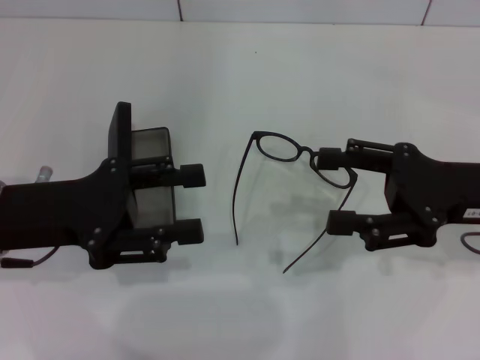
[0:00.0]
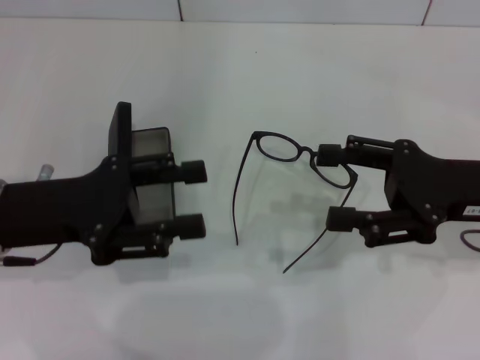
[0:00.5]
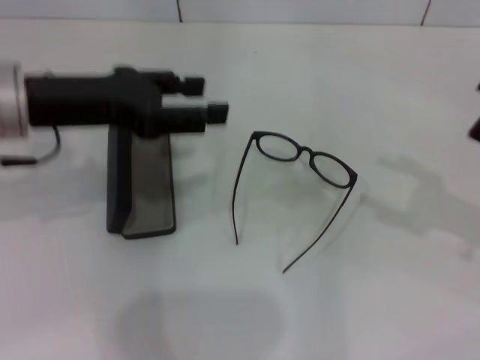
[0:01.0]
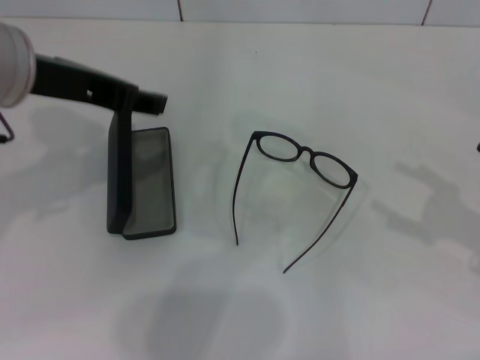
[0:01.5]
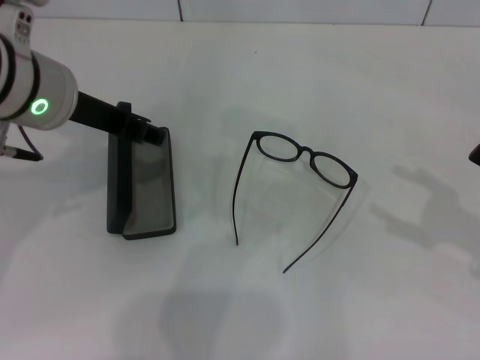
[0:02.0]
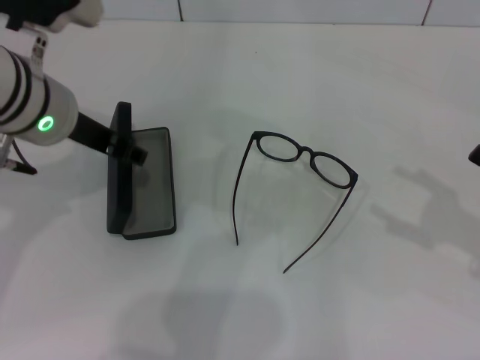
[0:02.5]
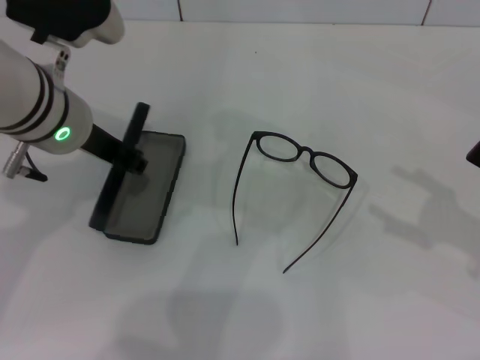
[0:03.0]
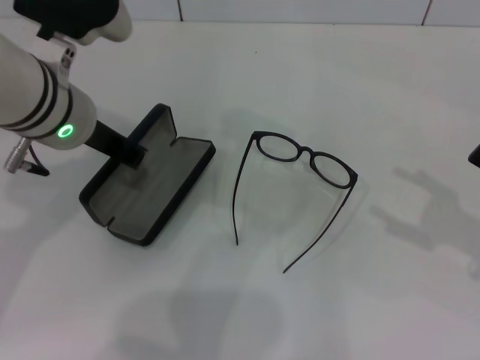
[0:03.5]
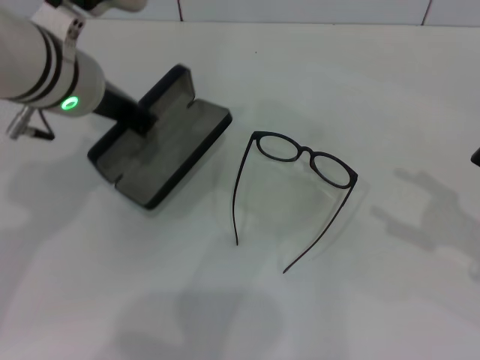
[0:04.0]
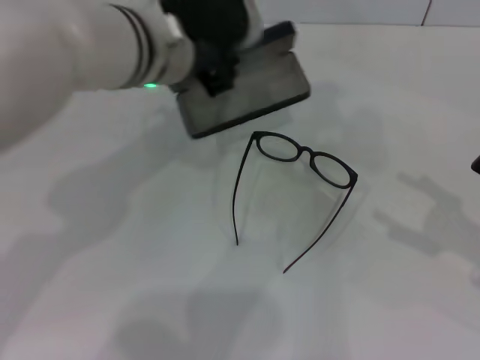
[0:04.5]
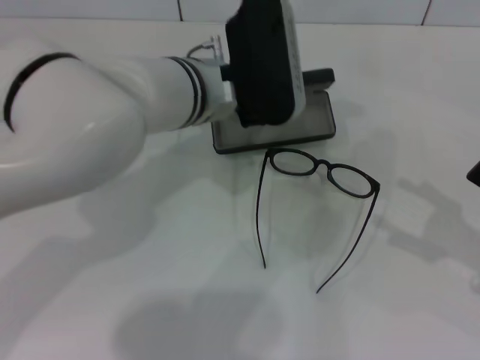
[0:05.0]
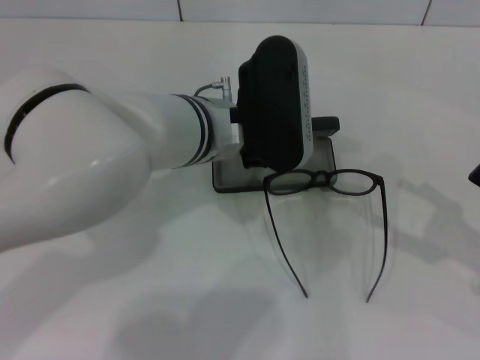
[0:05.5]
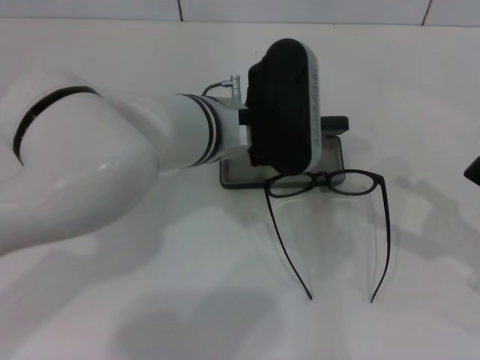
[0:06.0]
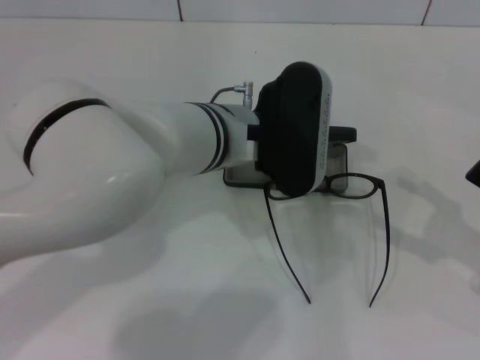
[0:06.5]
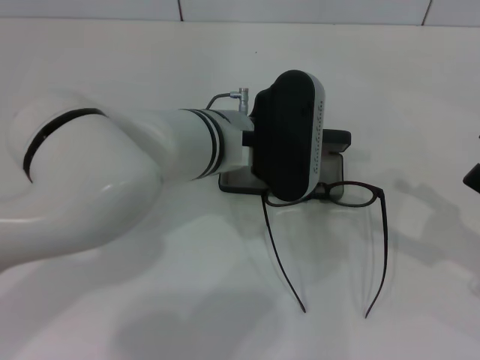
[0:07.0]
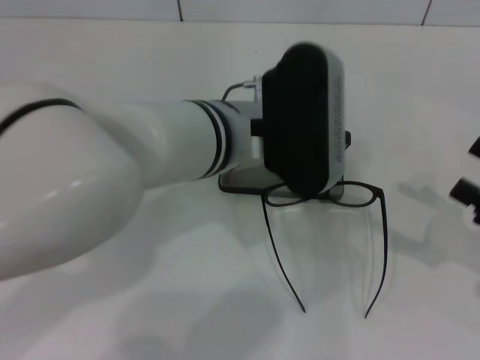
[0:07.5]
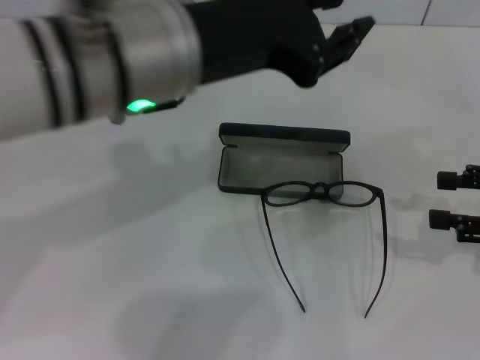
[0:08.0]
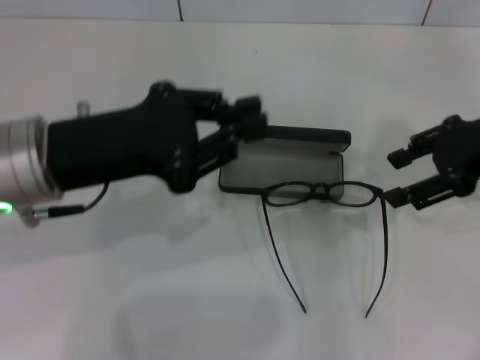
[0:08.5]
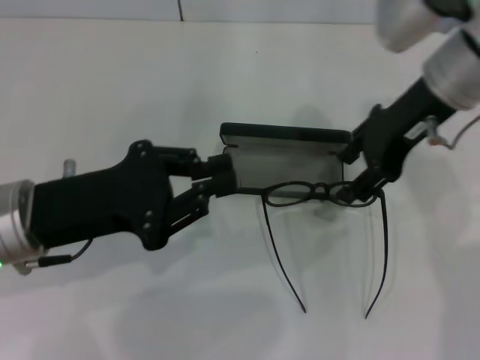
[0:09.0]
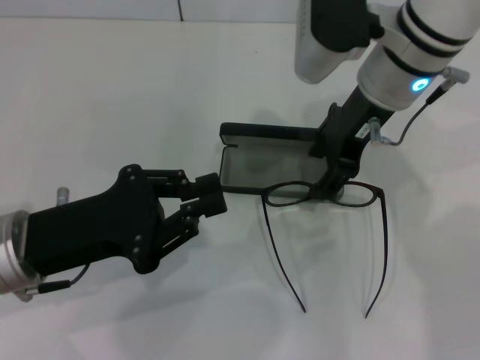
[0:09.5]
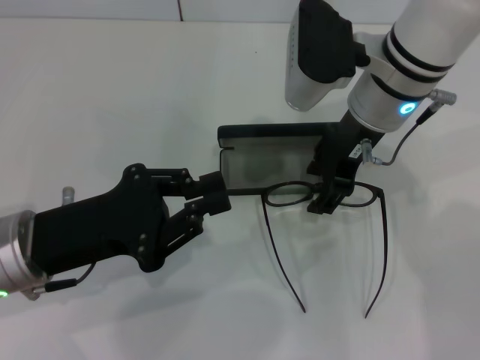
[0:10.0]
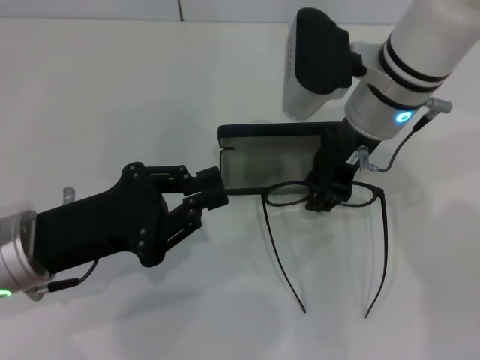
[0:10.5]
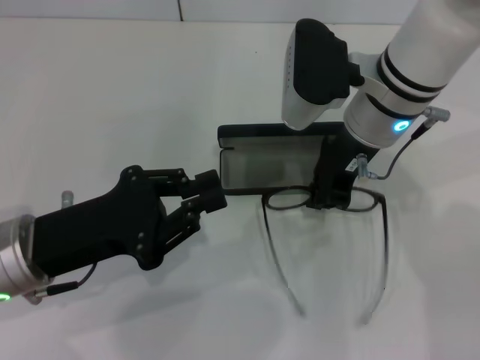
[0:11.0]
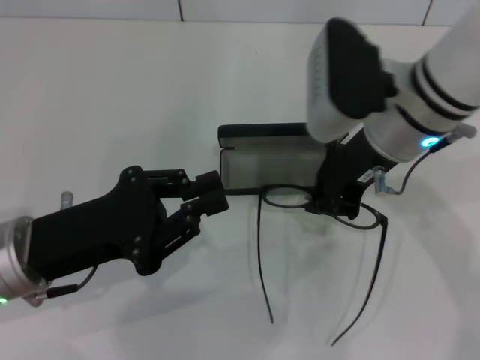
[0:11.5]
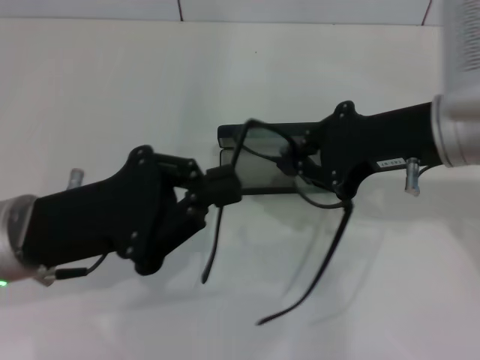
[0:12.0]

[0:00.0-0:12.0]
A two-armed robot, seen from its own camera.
Step, 0:00.0 to 0:03.0: Grab the glasses case with your left hand.
Step, 0:03.5 to 0:07.0: Place the glasses case in the center of the table with your left hand.
Step, 0:07.5 to 0:10.5: Grab the eyeglass frame with your right hand.
0:00.0 to 0:02.0: The right gripper shifts about 10 cm to the right and backward. Meanwhile the left gripper goes approximately 15 cm upward, to the right and forward.
0:02.0 to 0:04.0: The left gripper closes its fingers.
0:04.0 to 0:06.0: The left gripper moves to the right and downward, some 10 cm.
0:06.0 to 0:08.0: The right gripper shifts by approximately 5 cm. The left gripper is displaced upward, backward and to the left by approximately 15 cm.
0:08.0 to 0:10.0: The right gripper shifts some 25 cm to the left and forward; the left gripper travels downward and to the left by roughly 20 cm, and closes.
0:10.0 to 0:12.0: The right gripper moves backward and to the right, about 10 cm, and closes its fingers.

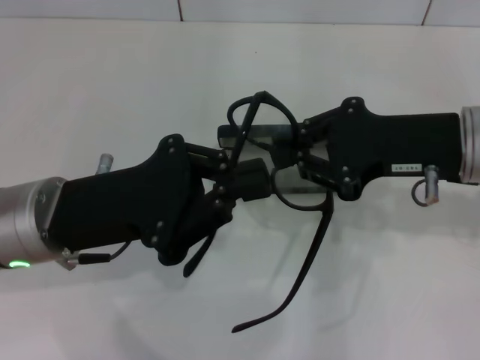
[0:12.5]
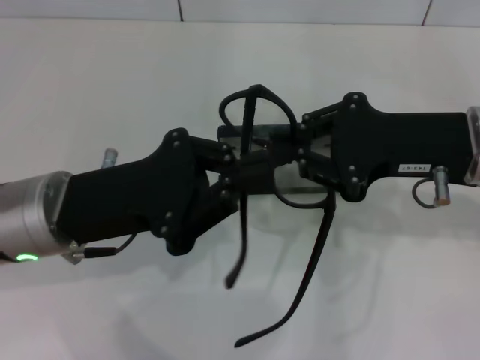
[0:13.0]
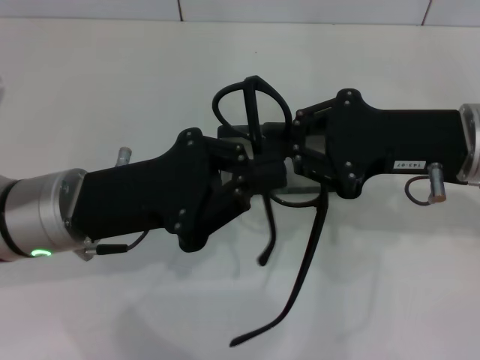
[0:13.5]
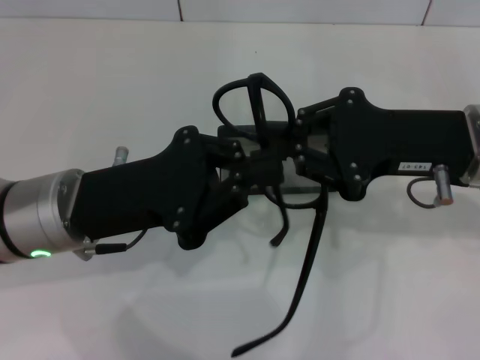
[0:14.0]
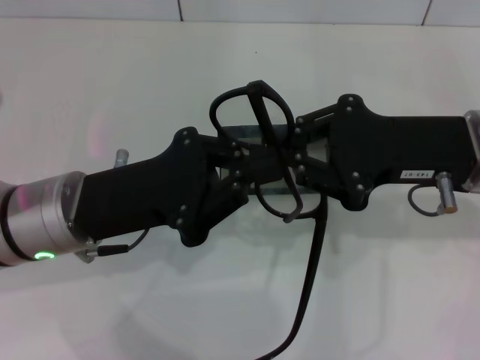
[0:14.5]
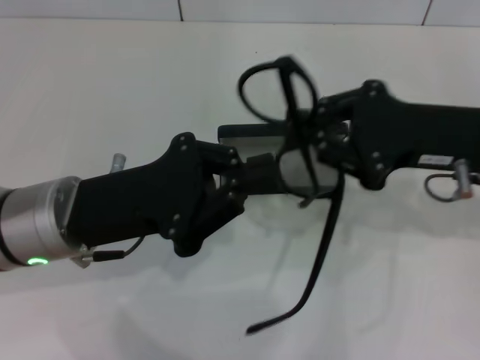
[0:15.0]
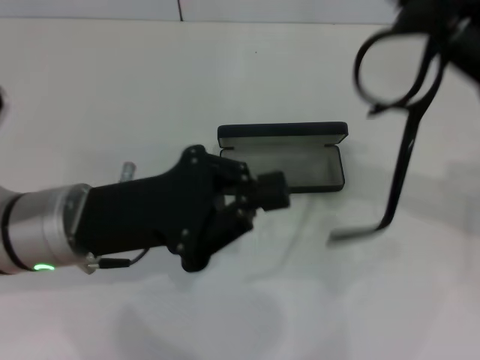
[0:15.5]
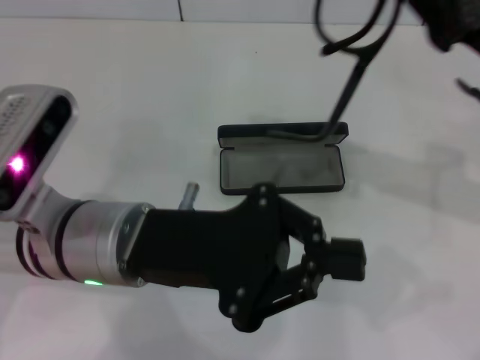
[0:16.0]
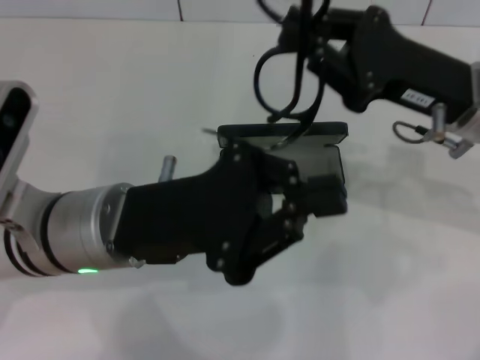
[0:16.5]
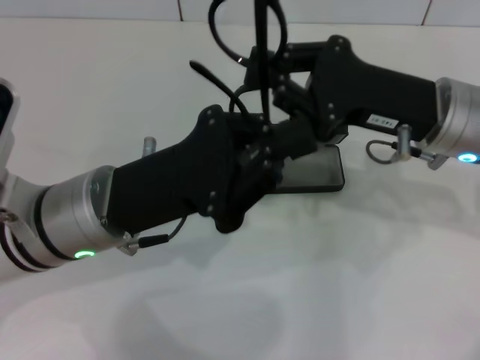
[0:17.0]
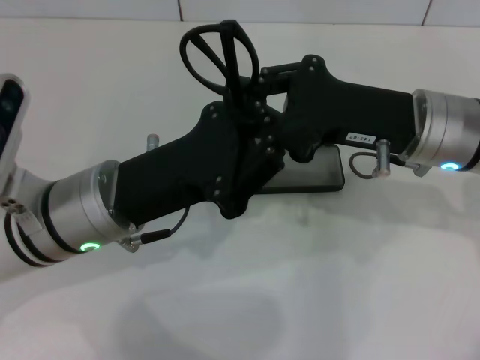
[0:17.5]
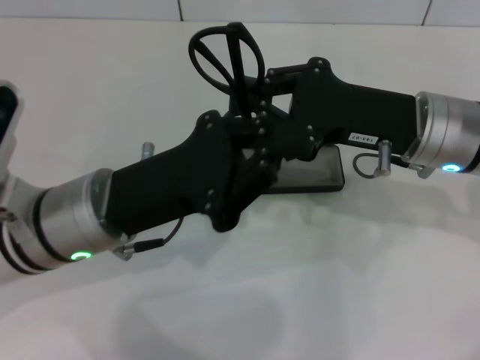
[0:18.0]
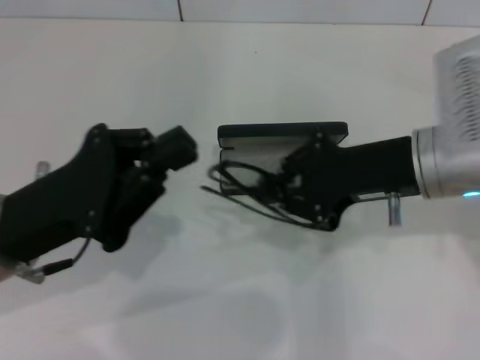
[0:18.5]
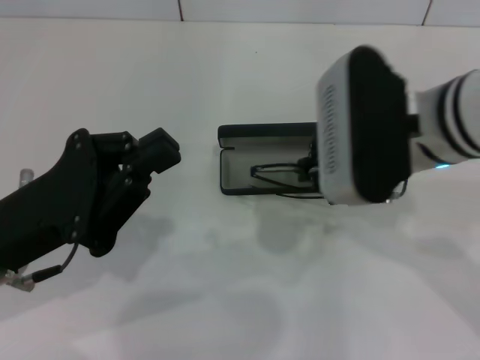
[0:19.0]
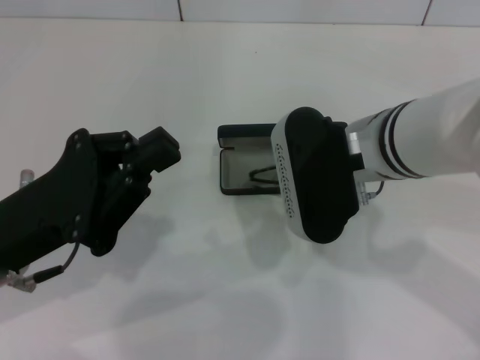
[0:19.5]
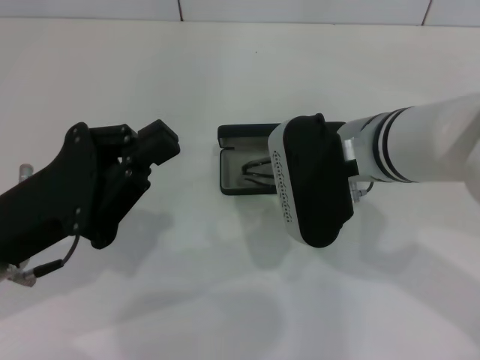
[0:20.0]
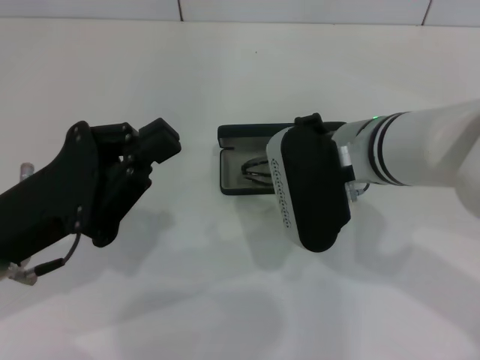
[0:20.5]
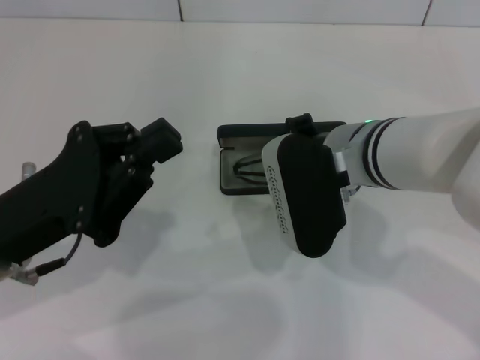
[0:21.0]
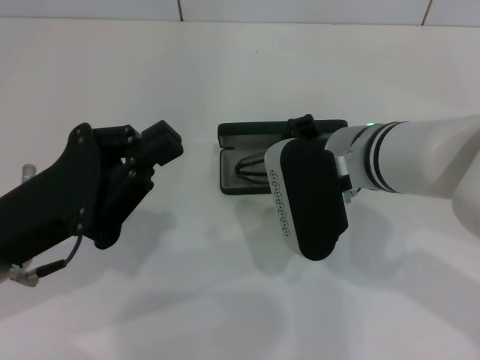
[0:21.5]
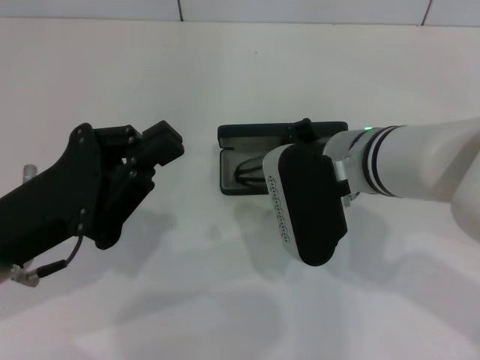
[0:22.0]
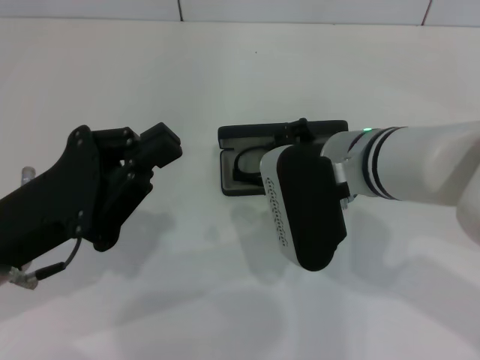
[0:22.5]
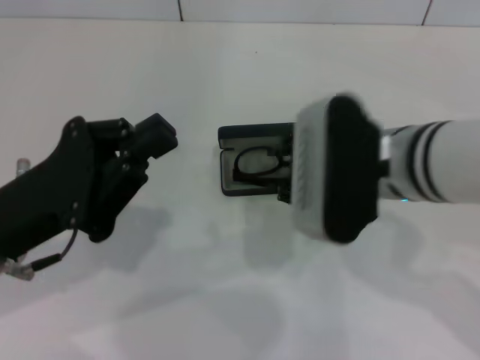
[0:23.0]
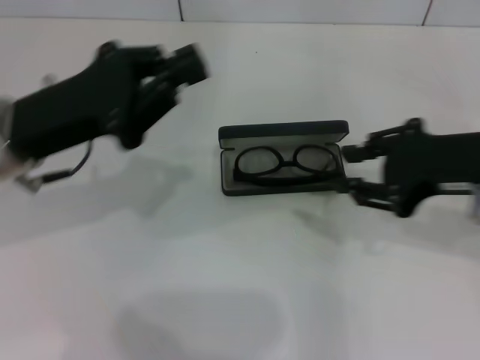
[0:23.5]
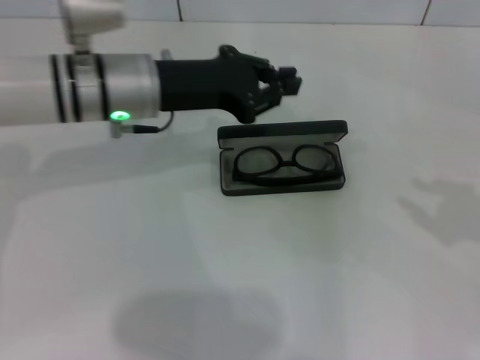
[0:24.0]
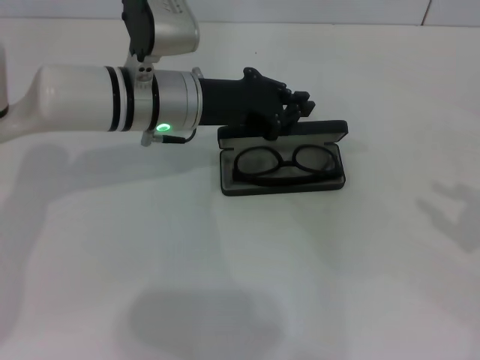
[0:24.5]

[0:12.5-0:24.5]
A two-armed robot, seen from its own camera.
Step, 0:12.5 to 0:17.5: Fold the frame with your left hand.
Step, 0:18.0 to 0:22.0: Put the glasses into the case with your right hand.
0:12.5 to 0:14.5: There are only small adjustments of the grippers.
0:16.5 to 0:18.5: The left gripper heads to the left, covering about 10 cm.
0:18.5 to 0:20.5: The right gripper goes approximately 10 cm to the left.
0:20.5 to 0:22.5: Both grippers stay put.
0:22.5 to 0:24.5: The left gripper goes about 20 cm forward and to the right. Meanwhile the right gripper is displaced to the right by roughly 30 cm.

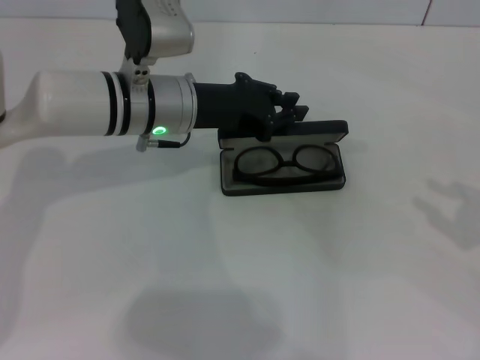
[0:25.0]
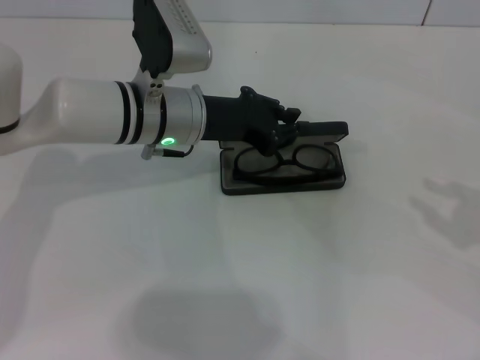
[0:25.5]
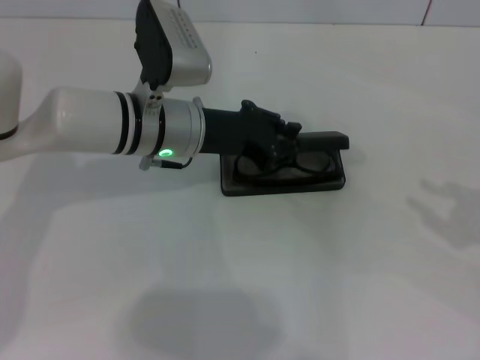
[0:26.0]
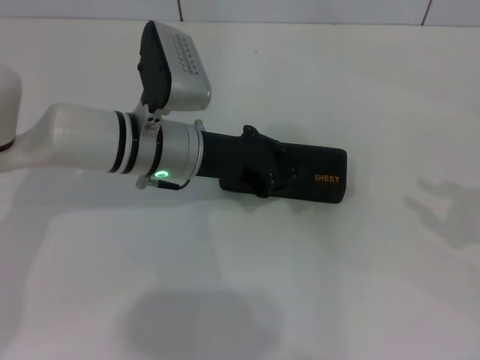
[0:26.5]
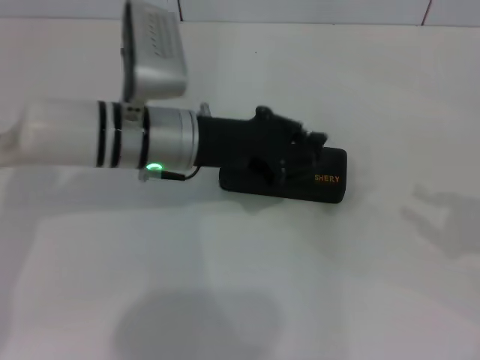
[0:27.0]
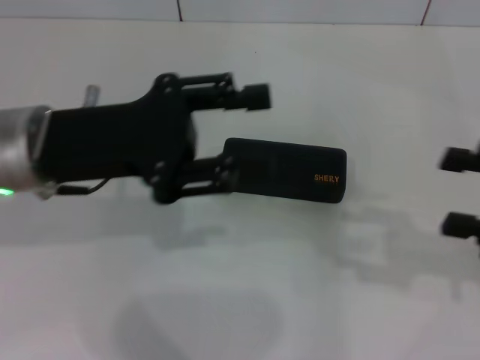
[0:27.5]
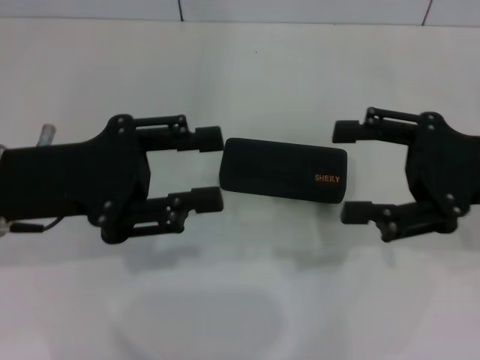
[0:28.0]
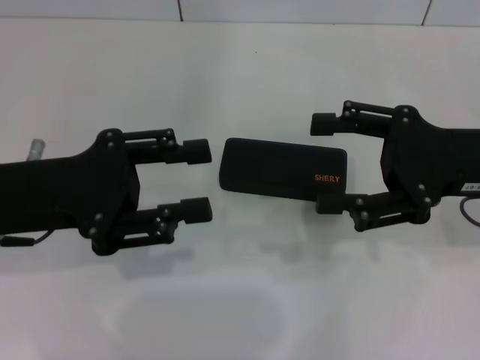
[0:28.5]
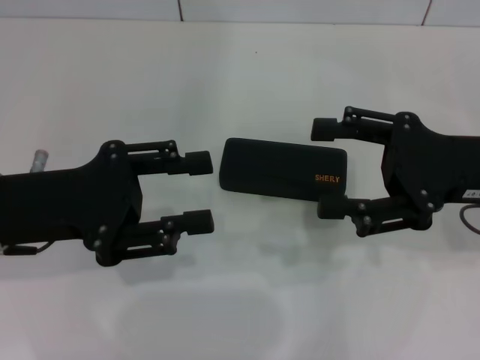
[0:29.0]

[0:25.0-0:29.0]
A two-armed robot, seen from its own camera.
0:25.0 to 0:27.0: The grippers move only a little.
0:27.0 to 0:29.0: The right gripper shifts some 15 cm to the left and forward, and opens up, while the left gripper heads to the left and backward, covering roughly 15 cm, and opens up.
